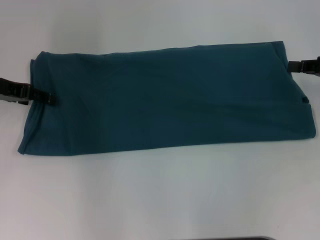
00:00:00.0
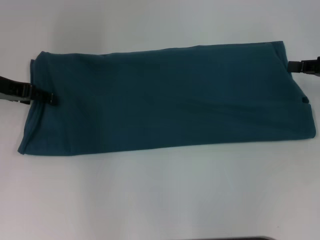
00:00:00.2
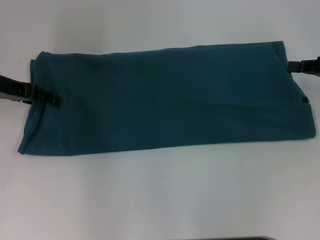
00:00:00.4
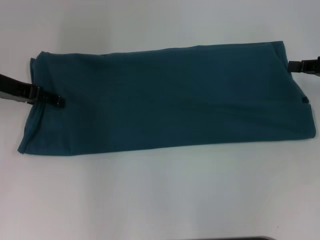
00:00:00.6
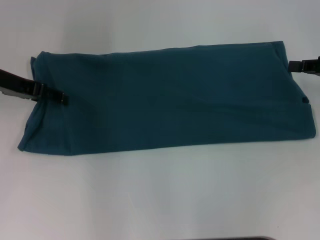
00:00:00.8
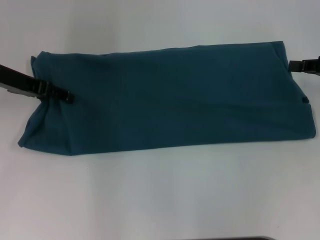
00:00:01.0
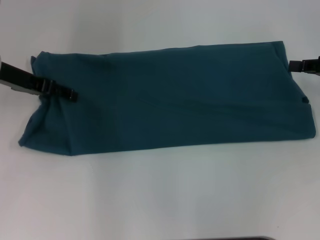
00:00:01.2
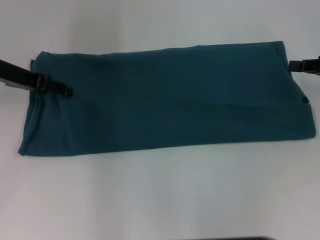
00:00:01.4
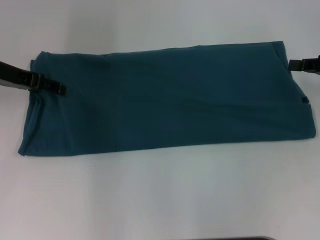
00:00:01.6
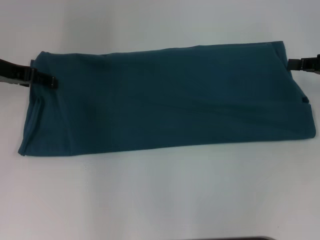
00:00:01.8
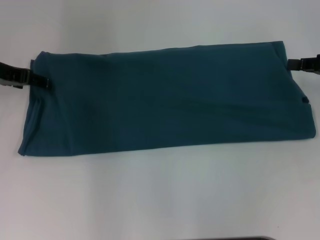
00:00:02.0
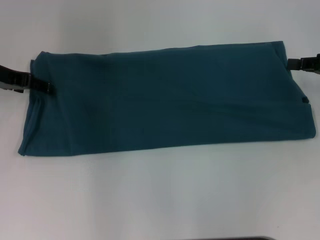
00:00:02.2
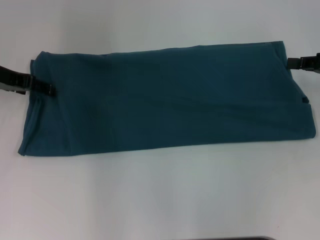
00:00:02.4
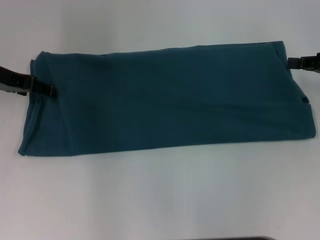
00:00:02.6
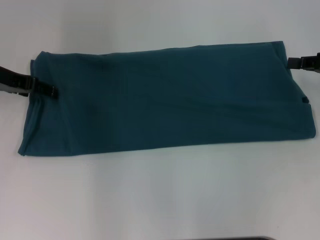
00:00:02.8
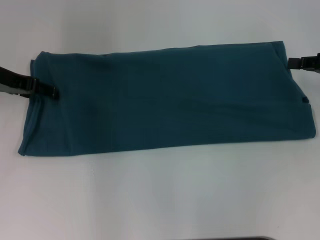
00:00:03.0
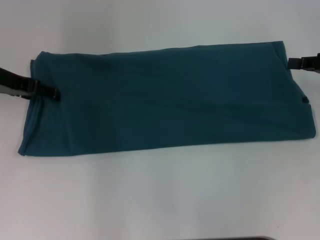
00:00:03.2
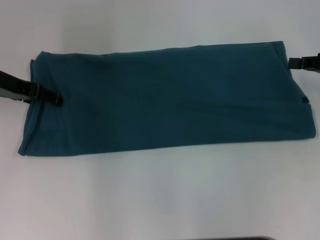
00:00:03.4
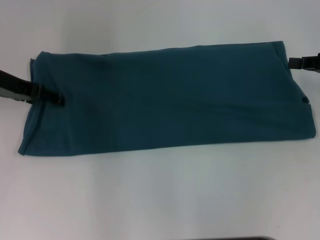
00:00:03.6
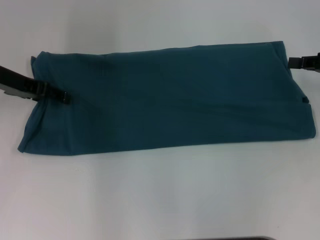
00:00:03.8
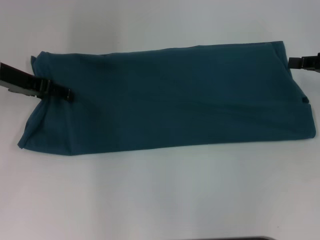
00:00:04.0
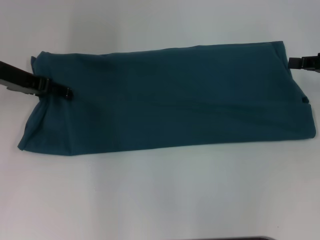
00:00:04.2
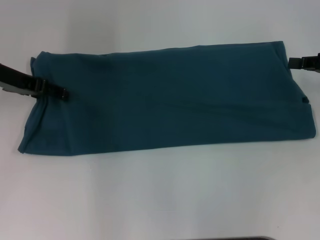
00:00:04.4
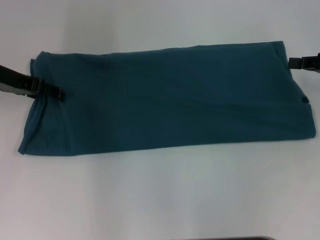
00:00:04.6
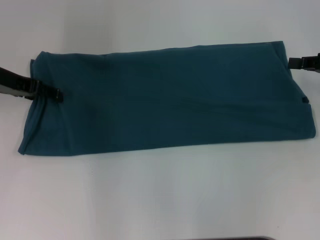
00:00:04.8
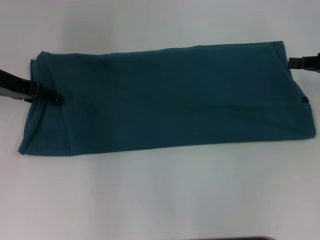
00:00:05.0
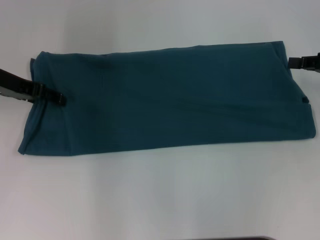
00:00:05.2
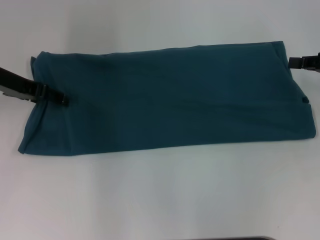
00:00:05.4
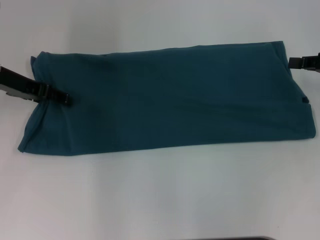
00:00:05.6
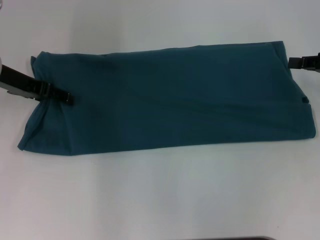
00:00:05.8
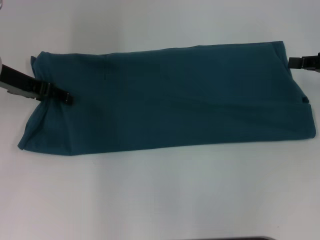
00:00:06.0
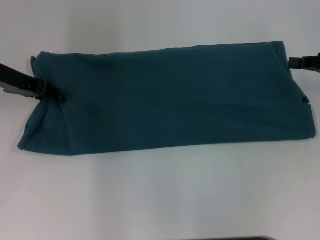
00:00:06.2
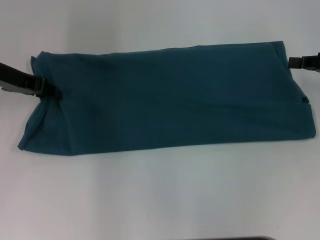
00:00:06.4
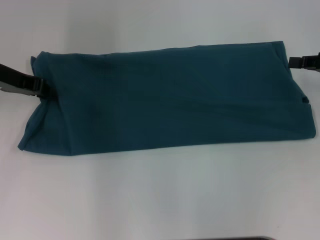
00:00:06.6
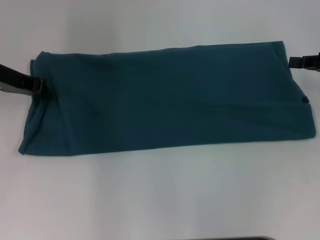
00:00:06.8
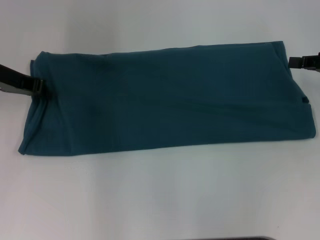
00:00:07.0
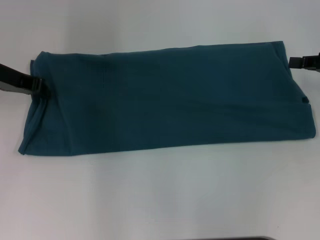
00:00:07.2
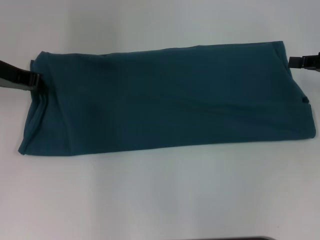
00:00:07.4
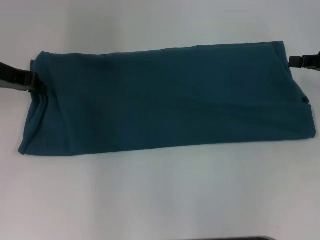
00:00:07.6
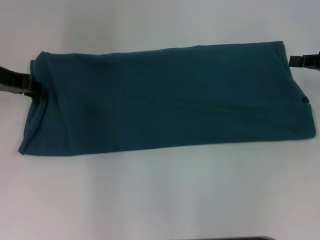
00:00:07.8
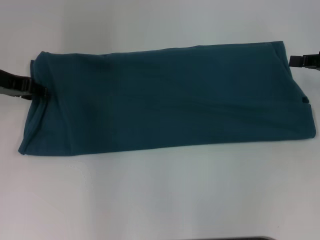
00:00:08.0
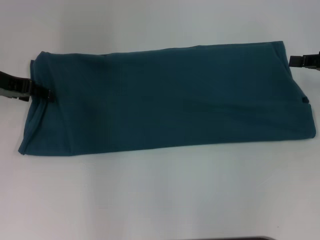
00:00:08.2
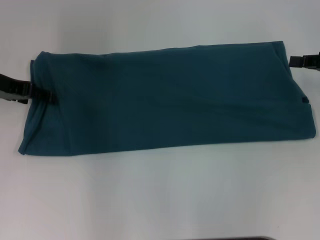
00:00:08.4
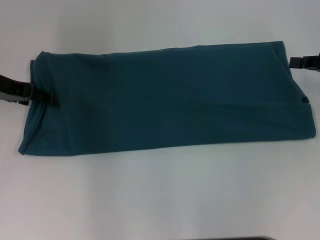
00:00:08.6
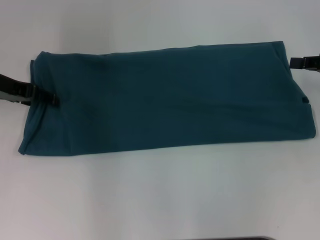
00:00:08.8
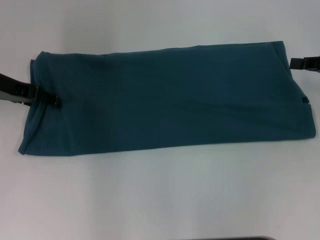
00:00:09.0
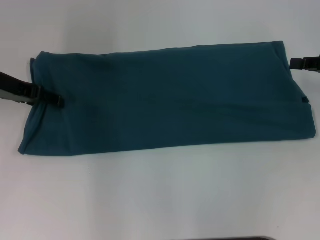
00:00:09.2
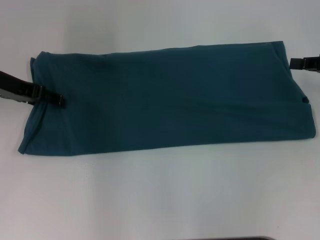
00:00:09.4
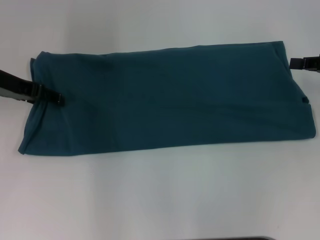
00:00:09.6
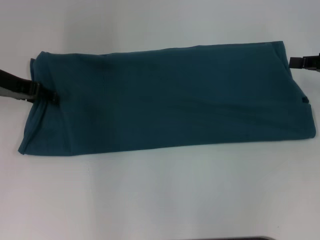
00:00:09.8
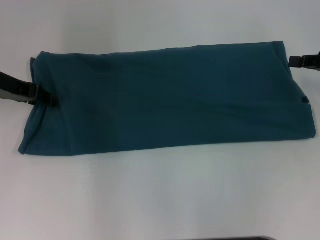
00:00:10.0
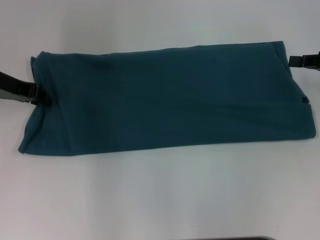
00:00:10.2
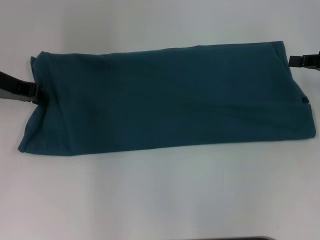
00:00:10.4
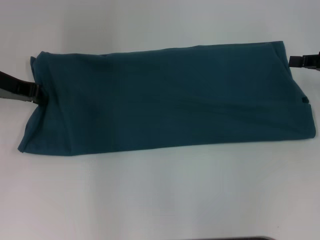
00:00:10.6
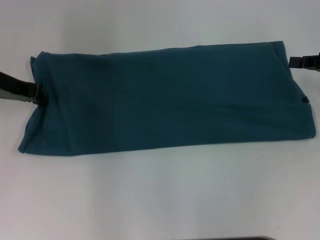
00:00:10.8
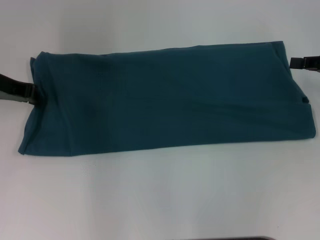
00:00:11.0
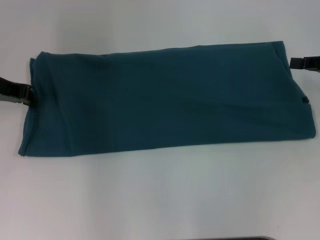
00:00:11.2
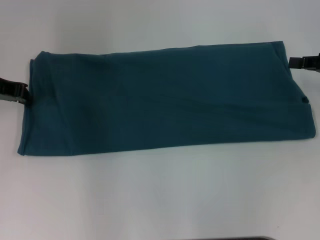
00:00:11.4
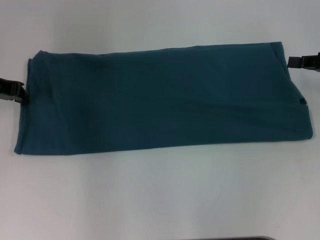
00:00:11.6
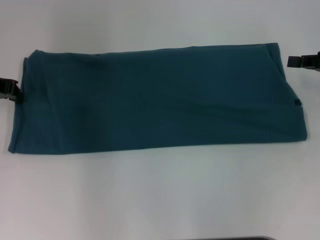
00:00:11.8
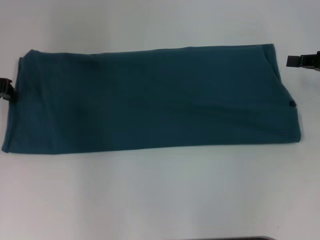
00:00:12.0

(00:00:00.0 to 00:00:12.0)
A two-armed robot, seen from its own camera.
00:00:00.0 - 00:00:03.0: The grippers make only small movements.
00:00:04.4 - 00:00:06.0: Neither gripper changes place.
00:00:06.0 - 00:00:07.6: The left gripper closes its fingers.
00:00:07.6 - 00:00:09.0: The left gripper opens up.
00:00:09.0 - 00:00:10.4: The left gripper closes up.
00:00:10.4 - 00:00:12.0: The grippers move only a little.

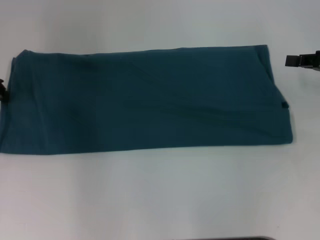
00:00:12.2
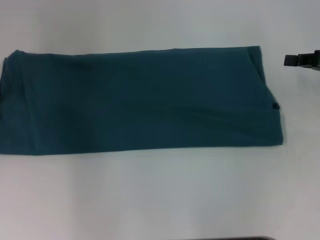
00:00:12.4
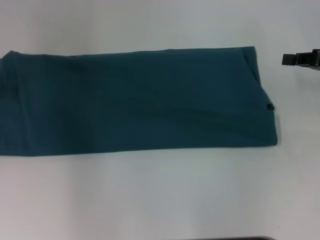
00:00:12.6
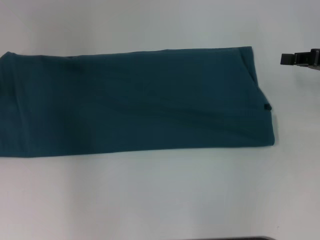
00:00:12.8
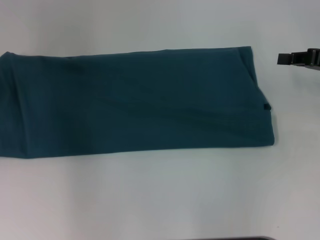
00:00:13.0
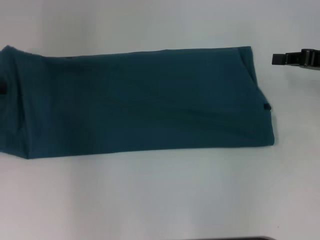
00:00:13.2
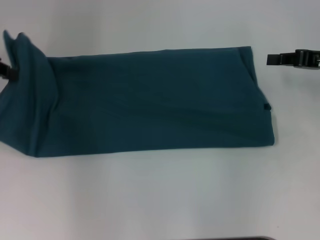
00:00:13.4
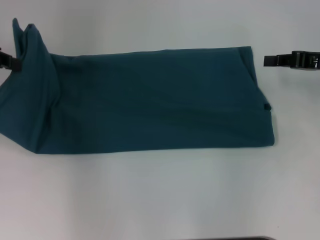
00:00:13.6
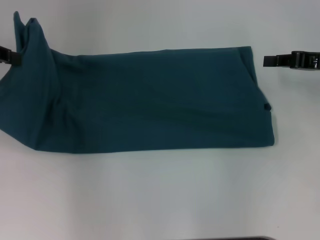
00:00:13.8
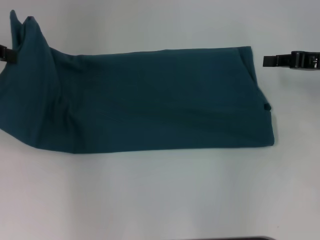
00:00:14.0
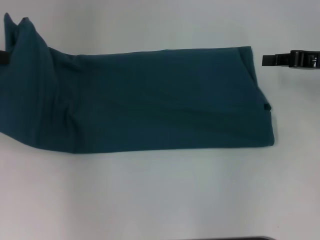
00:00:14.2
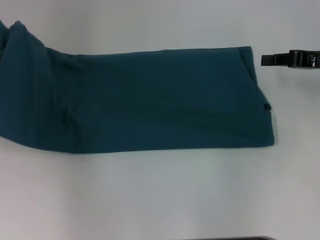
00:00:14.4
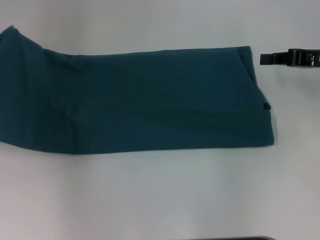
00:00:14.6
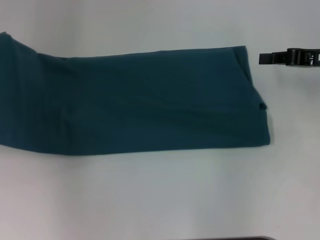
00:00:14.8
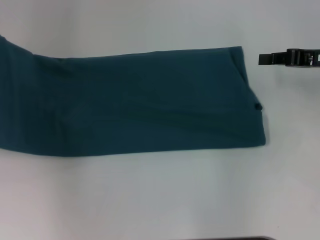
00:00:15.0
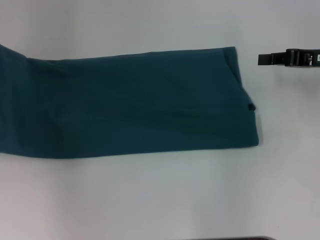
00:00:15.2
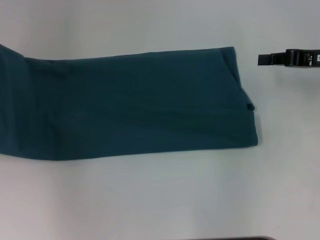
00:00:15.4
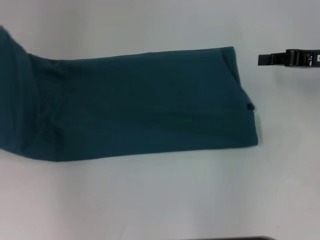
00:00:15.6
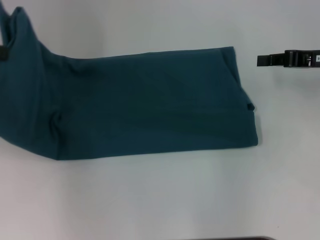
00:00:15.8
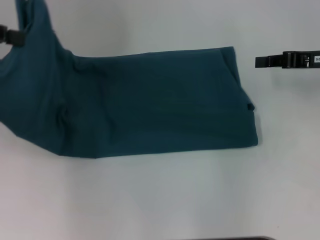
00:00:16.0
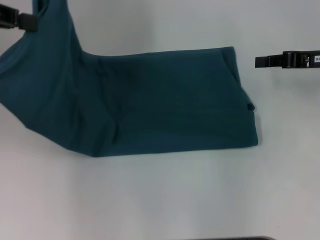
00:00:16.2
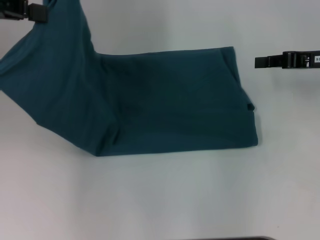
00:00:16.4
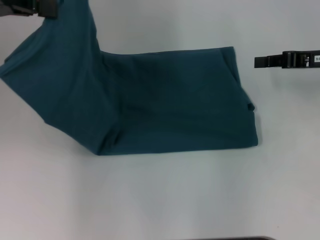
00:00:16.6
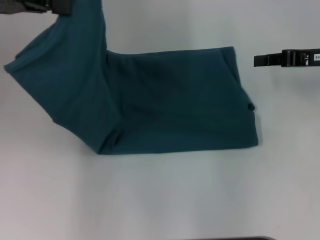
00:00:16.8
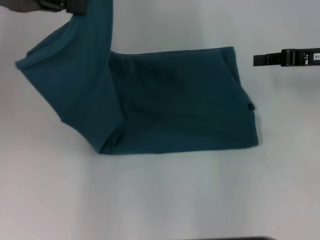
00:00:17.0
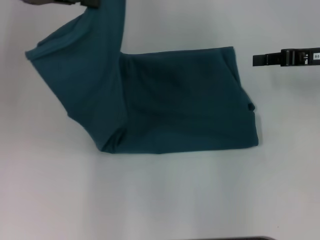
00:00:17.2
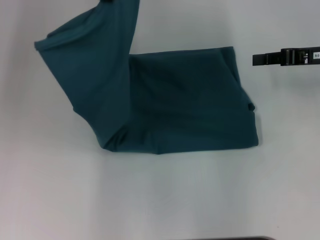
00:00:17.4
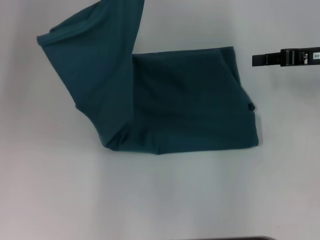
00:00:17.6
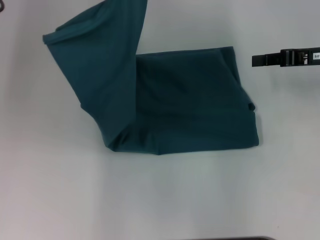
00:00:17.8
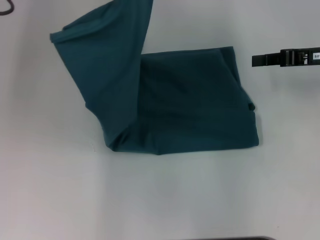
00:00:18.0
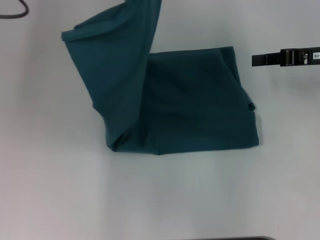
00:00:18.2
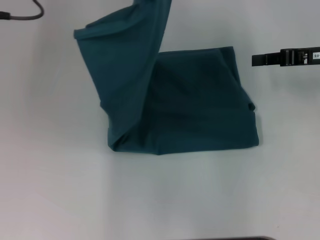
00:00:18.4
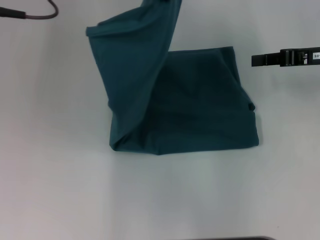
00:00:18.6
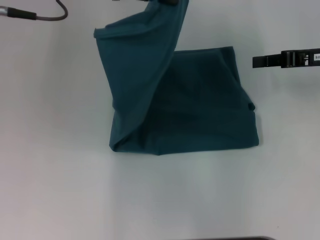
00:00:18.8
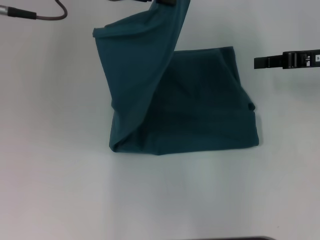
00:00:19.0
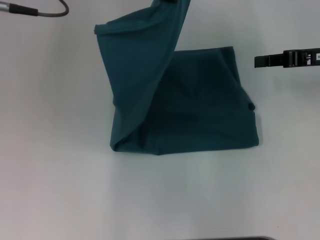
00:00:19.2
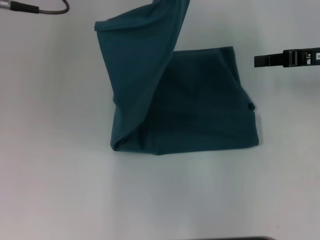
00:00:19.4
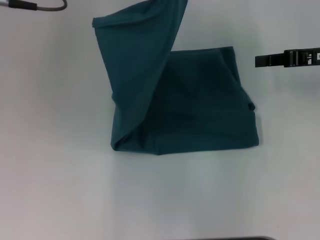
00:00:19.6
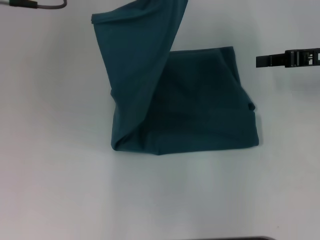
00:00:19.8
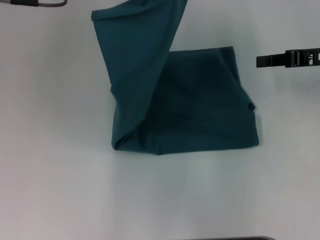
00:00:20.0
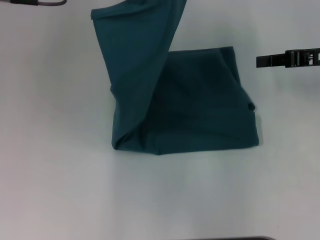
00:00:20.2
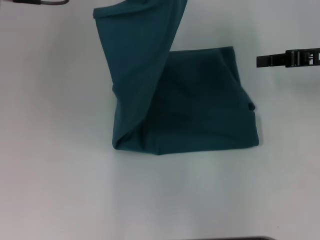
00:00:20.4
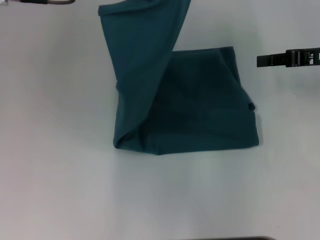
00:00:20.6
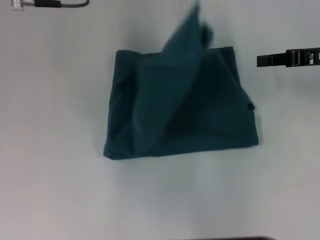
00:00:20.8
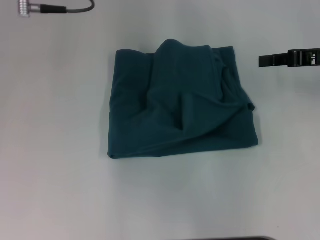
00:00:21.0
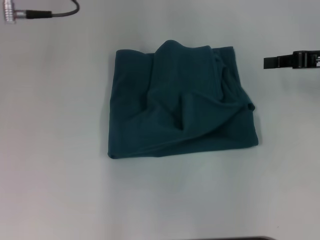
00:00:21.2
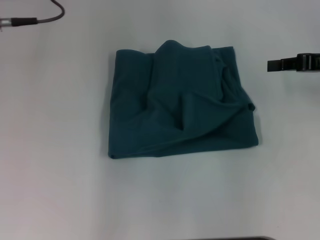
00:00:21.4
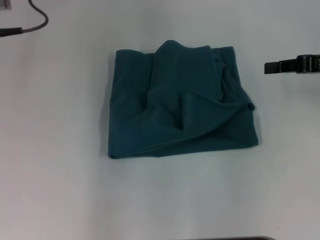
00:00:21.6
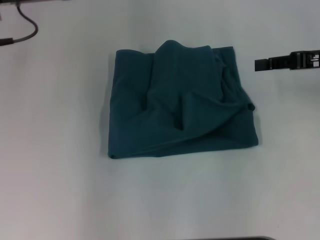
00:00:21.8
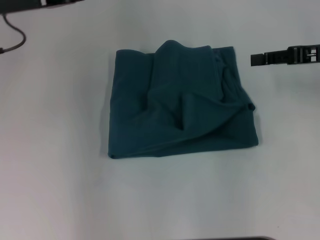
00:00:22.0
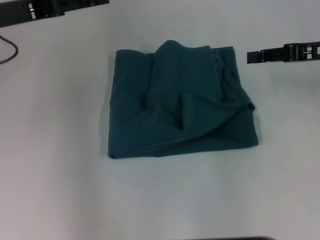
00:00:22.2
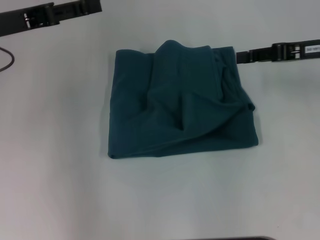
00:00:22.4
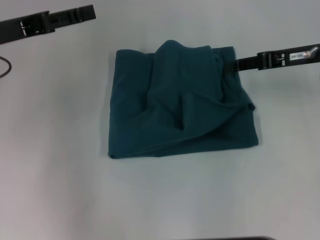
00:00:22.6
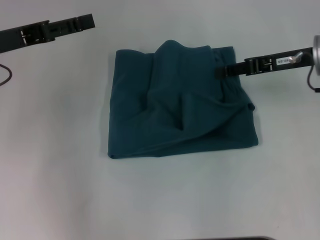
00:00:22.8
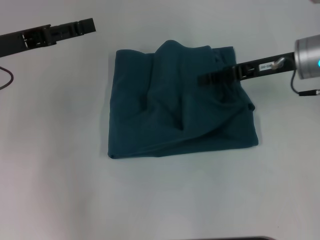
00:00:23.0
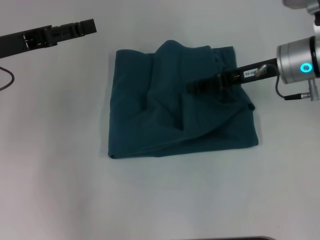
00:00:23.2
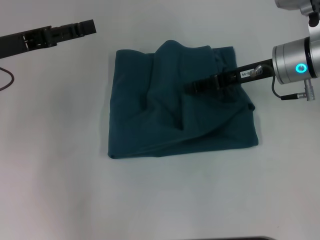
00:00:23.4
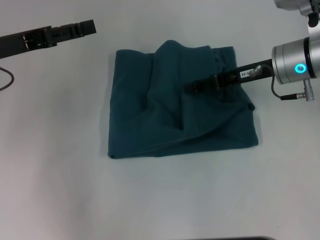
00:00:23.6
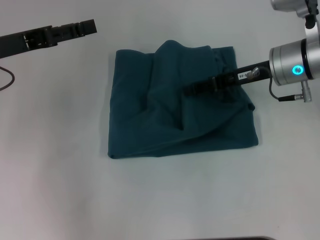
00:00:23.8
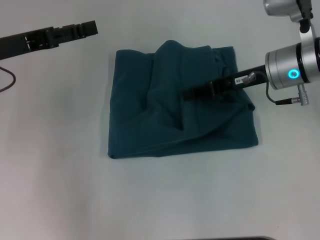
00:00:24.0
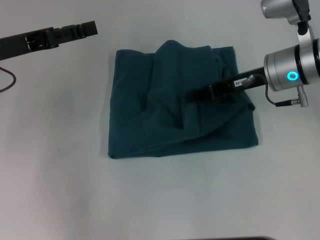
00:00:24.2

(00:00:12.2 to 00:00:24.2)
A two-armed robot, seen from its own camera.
Step, 00:00:12.2 - 00:00:21.0: Fold the clothes to the left.
00:00:12.2 - 00:00:13.8: The left gripper shifts about 5 cm upward.
00:00:13.8 - 00:00:15.2: The left gripper moves to the left, roughly 5 cm.
00:00:15.2 - 00:00:16.6: The left gripper heads to the right and upward, covering roughly 15 cm.
00:00:16.6 - 00:00:18.2: The left gripper shifts approximately 10 cm to the right.
00:00:18.2 - 00:00:19.8: The grippers move only a little.
00:00:19.8 - 00:00:21.2: The grippers make only small movements.
00:00:21.2 - 00:00:22.6: The right gripper ends up some 5 cm from where it was, and opens. Meanwhile the left gripper travels to the left and downward by roughly 15 cm, and opens.
00:00:22.6 - 00:00:24.2: The right gripper moves to the left, roughly 10 cm.
